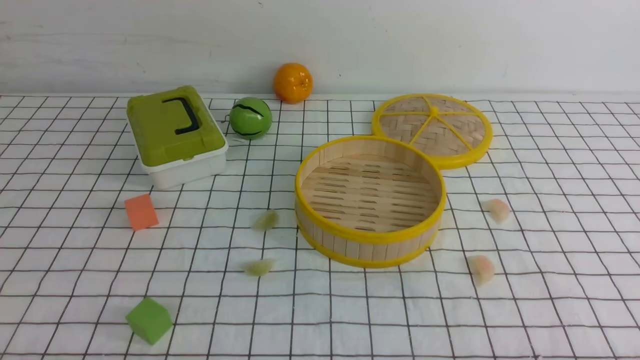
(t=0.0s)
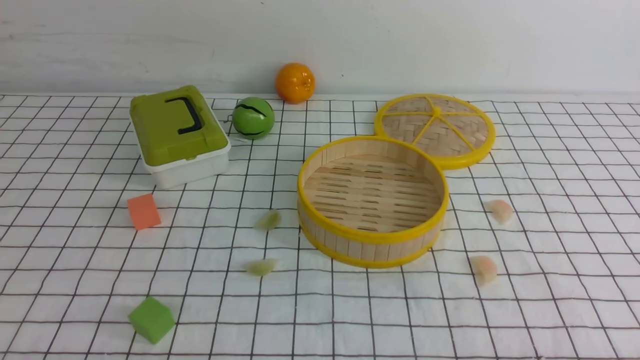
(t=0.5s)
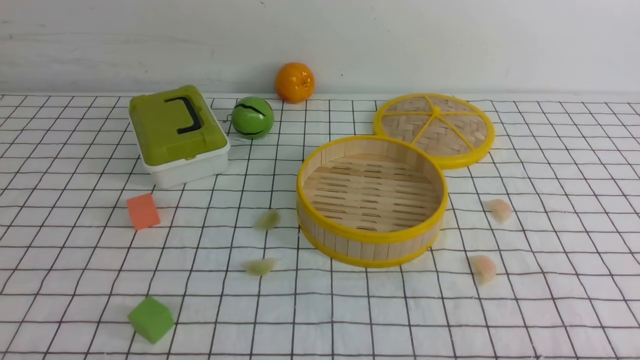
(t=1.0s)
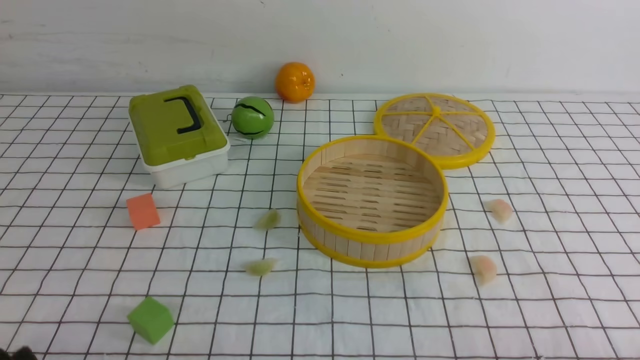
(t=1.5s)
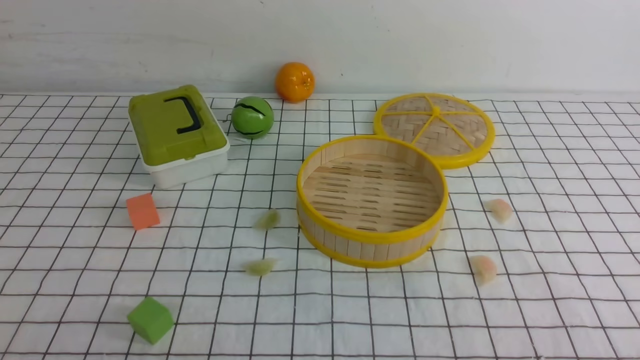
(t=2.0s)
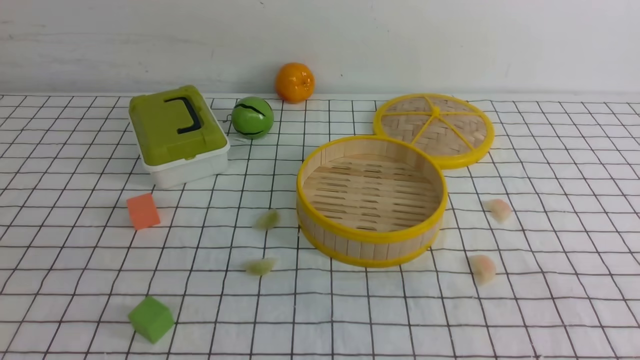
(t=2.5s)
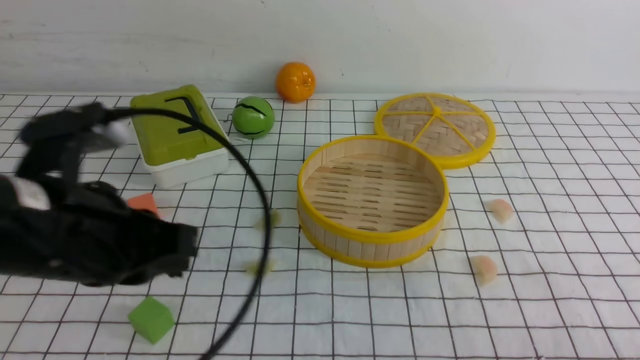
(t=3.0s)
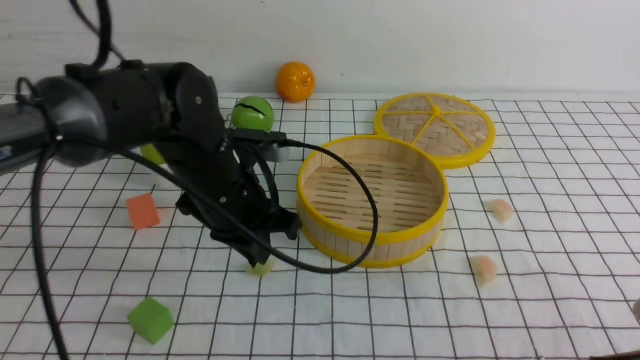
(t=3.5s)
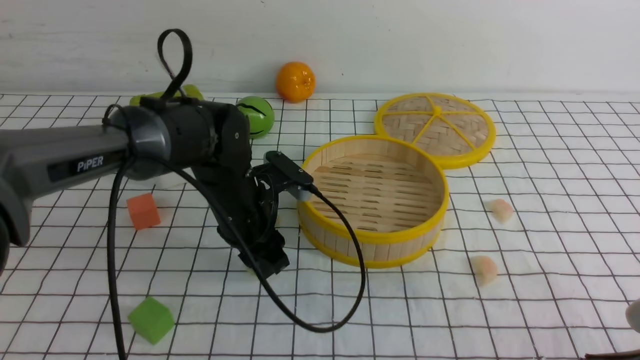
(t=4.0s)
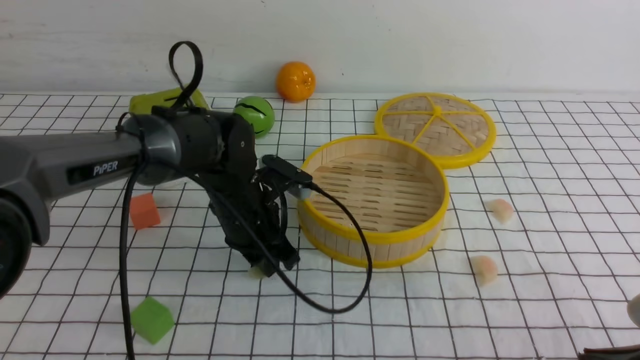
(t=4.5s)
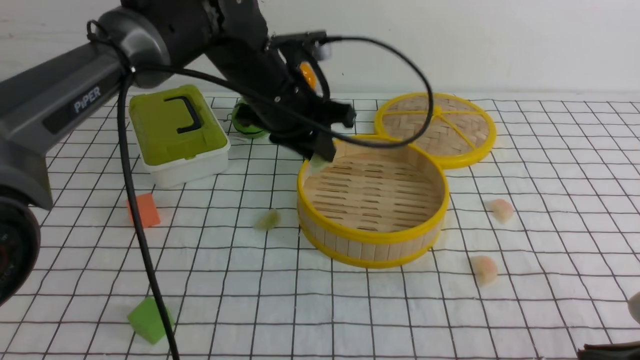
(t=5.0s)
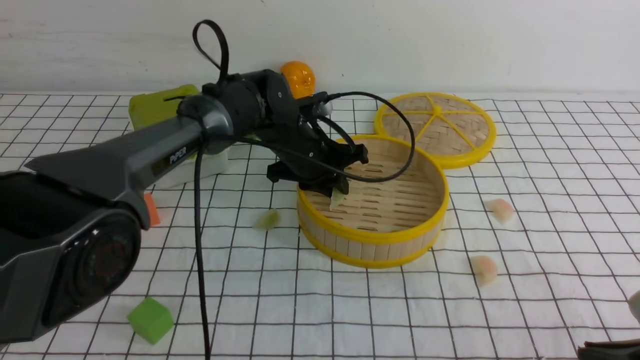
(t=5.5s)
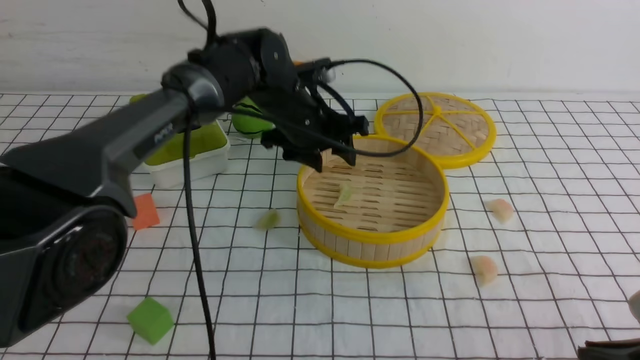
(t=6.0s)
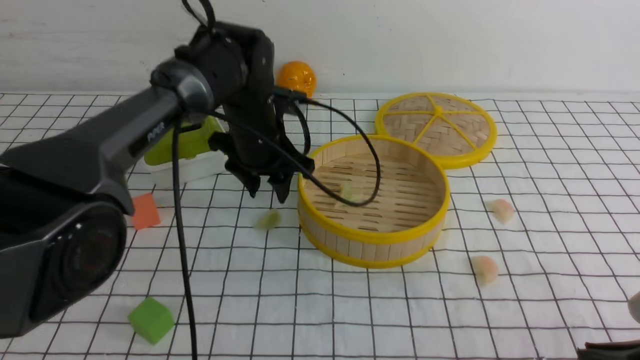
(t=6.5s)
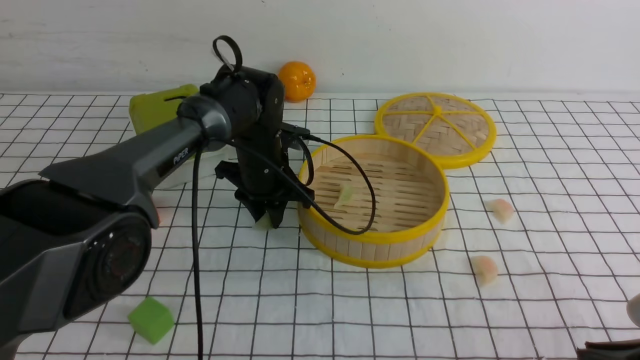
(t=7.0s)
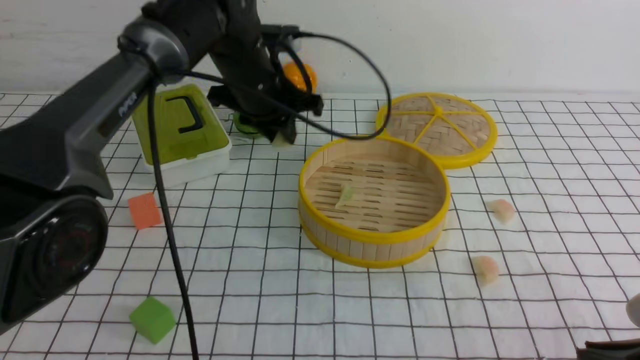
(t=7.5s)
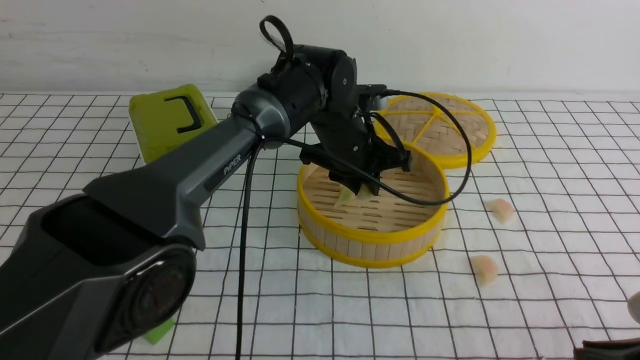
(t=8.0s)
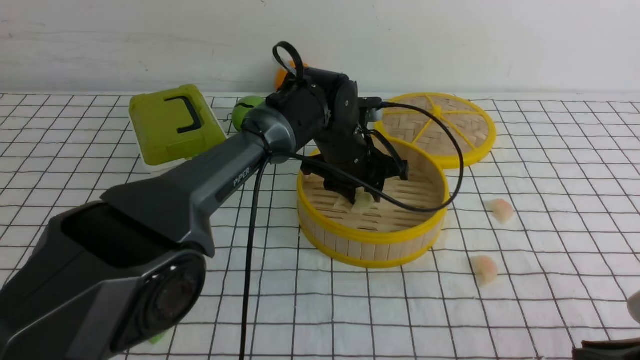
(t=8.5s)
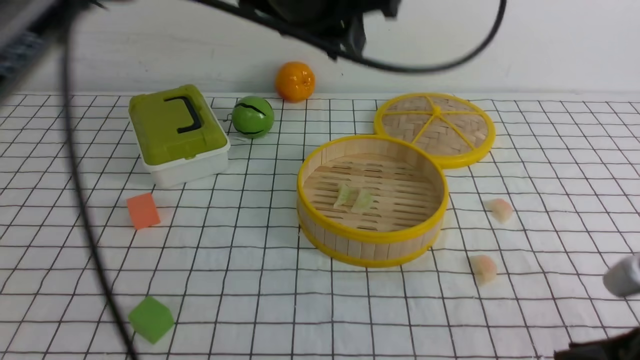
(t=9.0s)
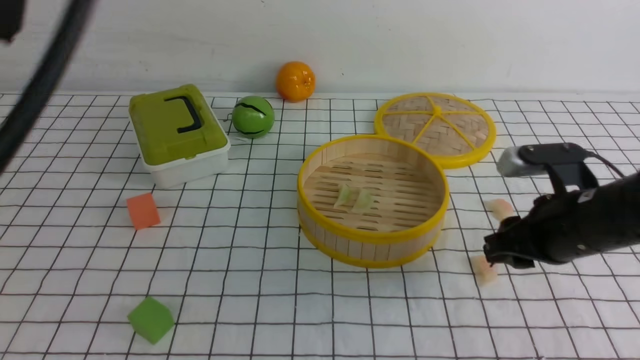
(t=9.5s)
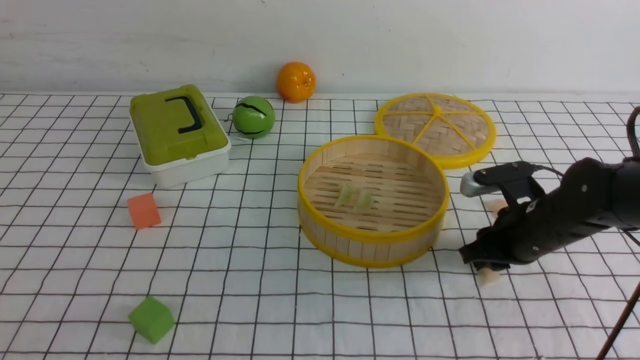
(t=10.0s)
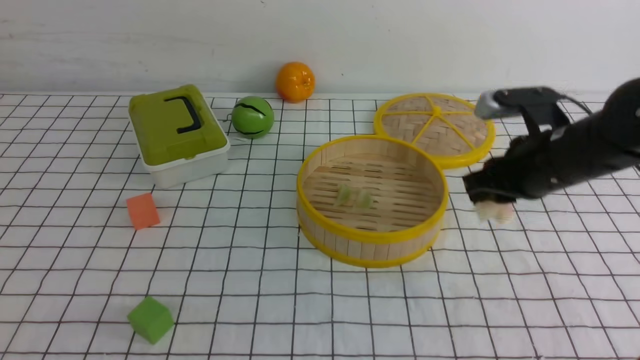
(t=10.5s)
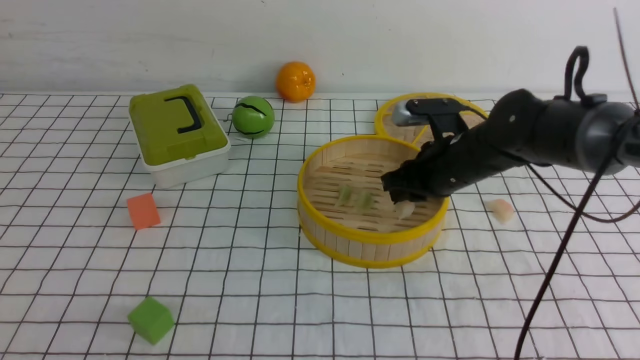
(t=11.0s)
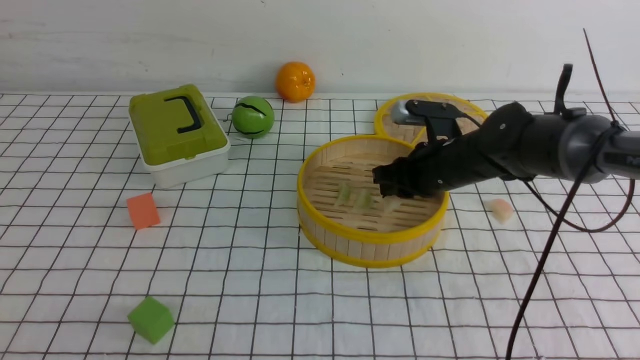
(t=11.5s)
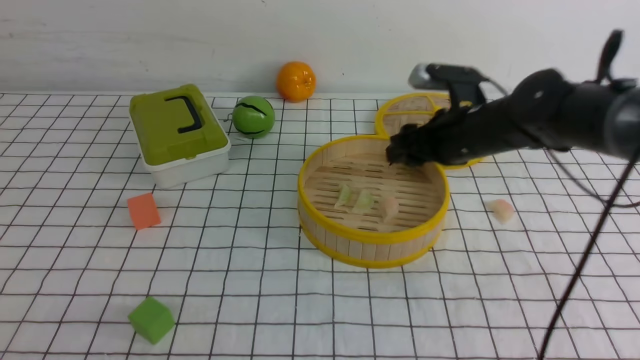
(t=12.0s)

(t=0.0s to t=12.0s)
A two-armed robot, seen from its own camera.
Task of the whole recording: put the dumplings into the steamer on the table with the white tablecloth.
Step, t=0.0s - t=4.0s: use the left arm to grab a dumpling.
Step, t=4.5s - t=6.0s: use the left arm to put the dumpling into the steamer.
Step, t=6.5s - t=7.0s: use the left arm to grab a dumpling.
Step, t=7.5s - t=8.5s: use the left arm to put the dumpling into the steamer.
Step, t=9.0s - t=10.0s: use the right arm to grab a dumpling.
Step, t=10.5s - t=12.0s: use the right arm to put the dumpling into the steamer.
t=0.0s - t=2.0s: The right gripper moves upward, about 10 cm.
t=2.0s - t=4.0s: The right gripper is displaced forward by approximately 10 cm, travels upward and back again, roughly 5 cm each way, and closes its fingers. The left gripper goes some 35 cm forward and to the right, and closes, then reopens.
t=4.0s - t=6.0s: The left gripper moves up and down over some 10 cm, changing direction 2 times.
t=6.0s - t=8.0s: The left gripper goes roughly 5 cm to the right, and closes up.
t=8.0s - t=10.0s: The right gripper shifts roughly 25 cm forward. Meanwhile the left gripper travels backward and to the left by approximately 50 cm, and closes up.
t=10.0s - t=12.0s: The left gripper shifts approximately 10 cm downward. The right gripper swings up and down, about 10 cm each way, with 2 reversals, and opens up.

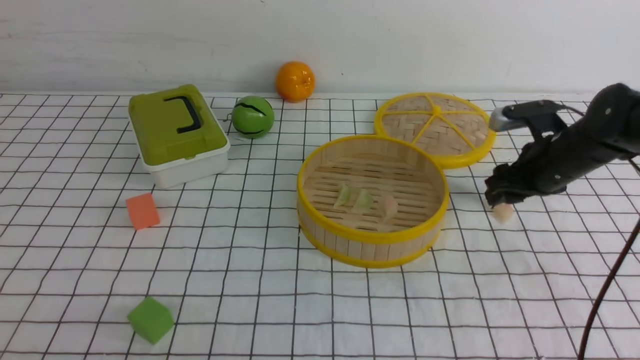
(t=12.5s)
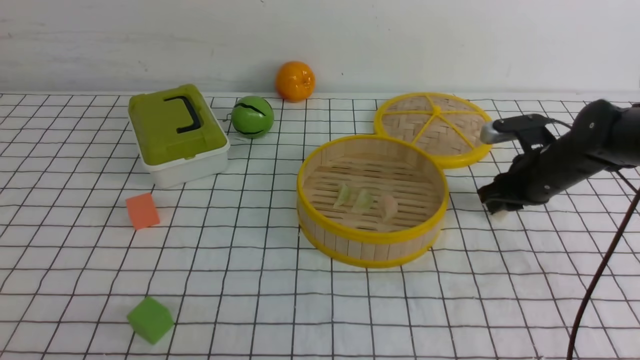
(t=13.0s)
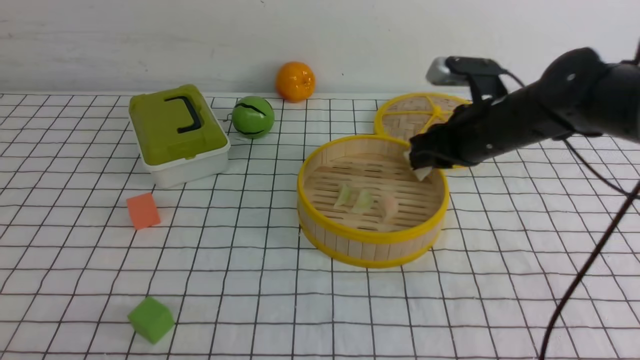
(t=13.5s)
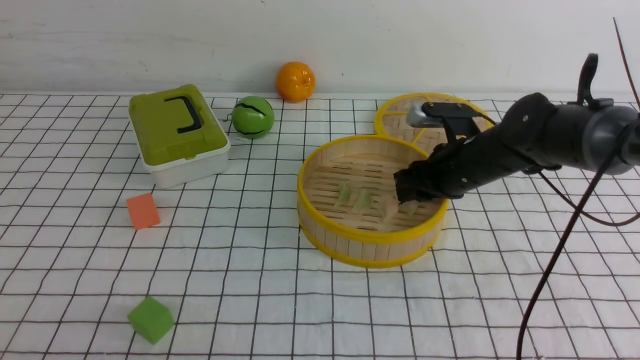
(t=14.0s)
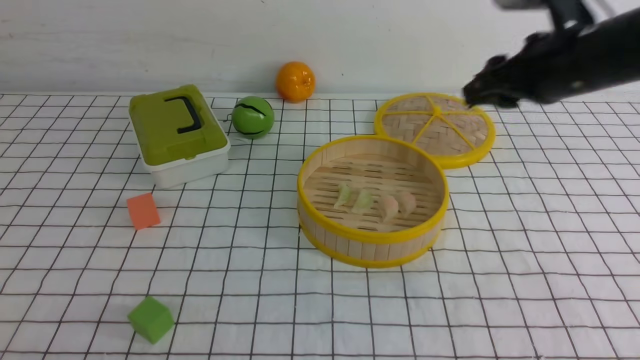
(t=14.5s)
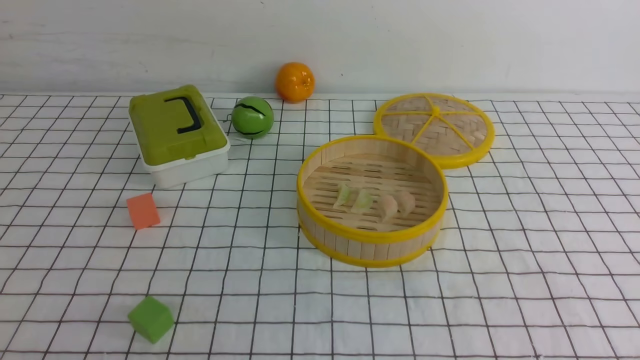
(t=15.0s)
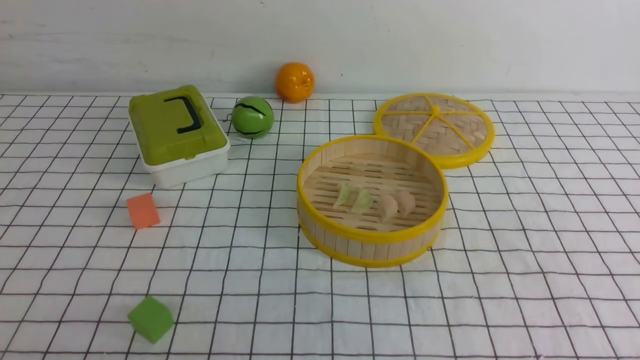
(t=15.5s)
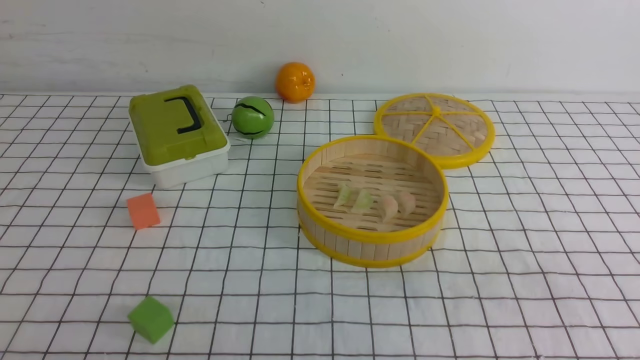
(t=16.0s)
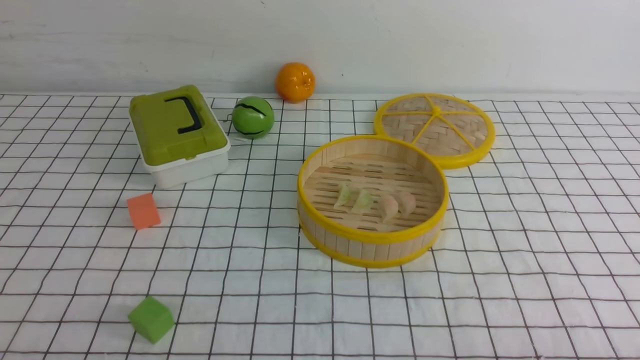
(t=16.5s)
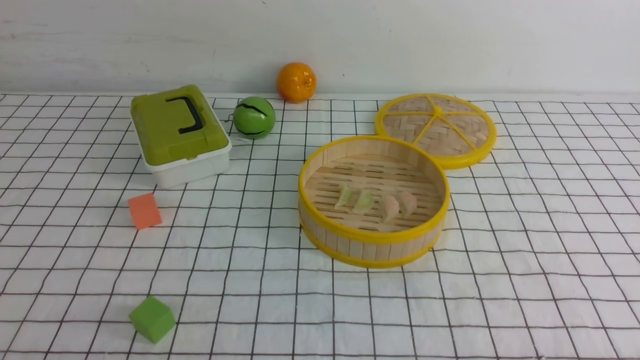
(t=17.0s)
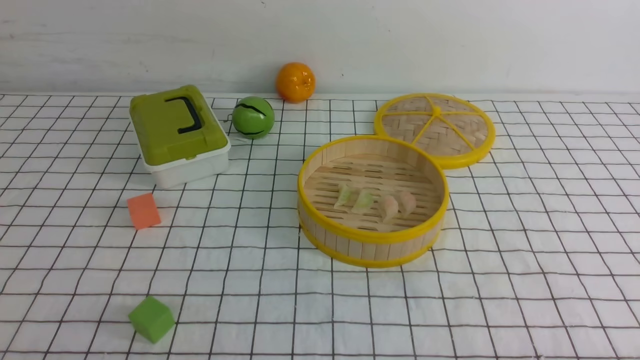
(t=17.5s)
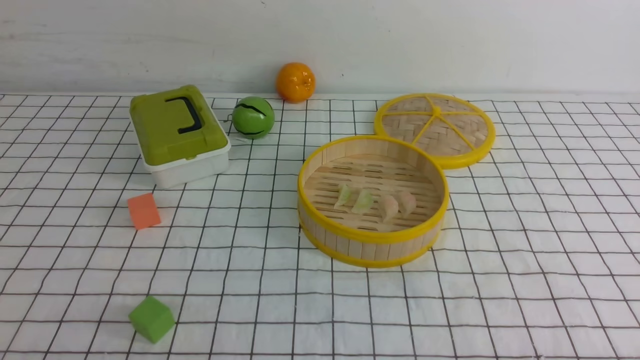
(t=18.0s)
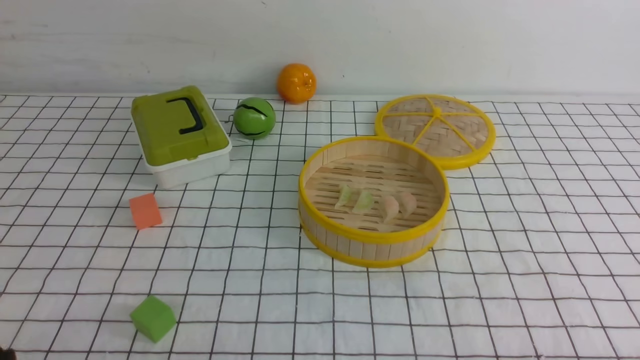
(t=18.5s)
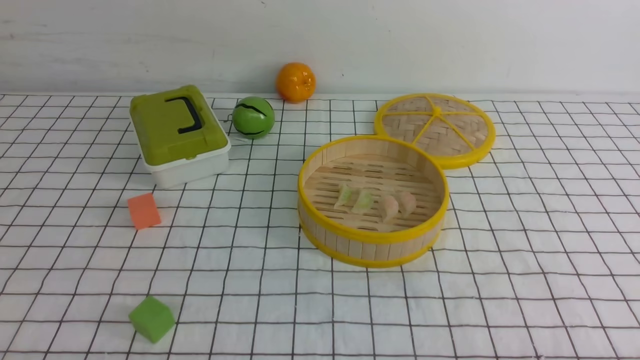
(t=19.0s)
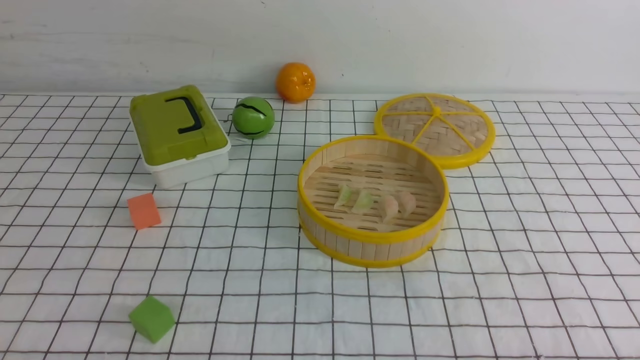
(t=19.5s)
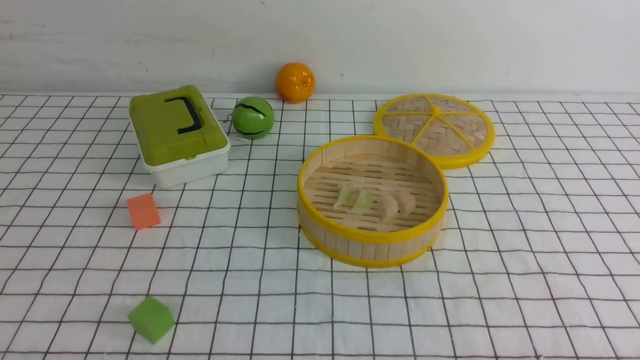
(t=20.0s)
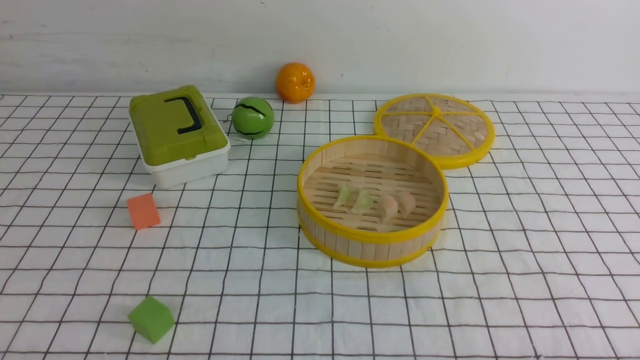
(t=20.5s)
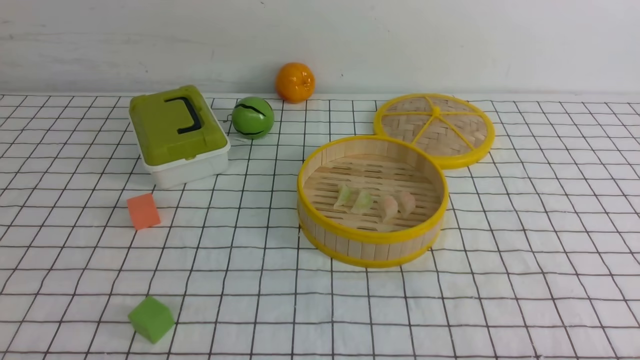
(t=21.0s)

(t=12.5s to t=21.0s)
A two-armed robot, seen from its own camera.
Task of the whole recording: put the dumplings into the steamer on the table with the white tablecloth.
Step, t=13.0s - t=14.0s: use the right arm to put the dumpling into the steamer.
t=12.5s - t=14.5s: The right gripper goes up and down, some 15 cm each way, reversing 2 times.
t=14.5s - t=16.5s: The right gripper goes some 35 cm backward and downward, and closes.
t=19.0s - t=21.0s: Both grippers stay about where they are.
